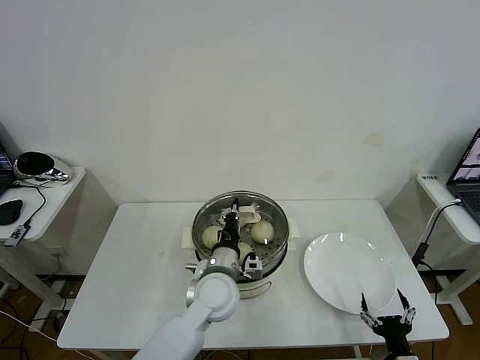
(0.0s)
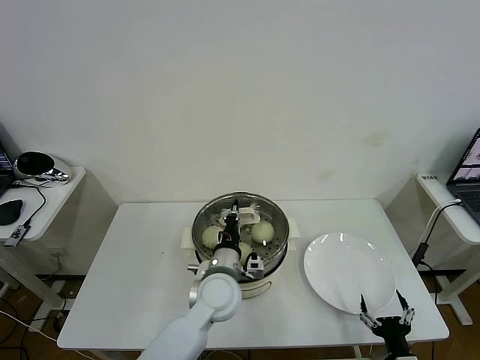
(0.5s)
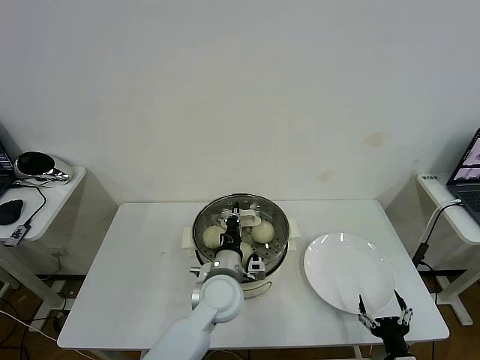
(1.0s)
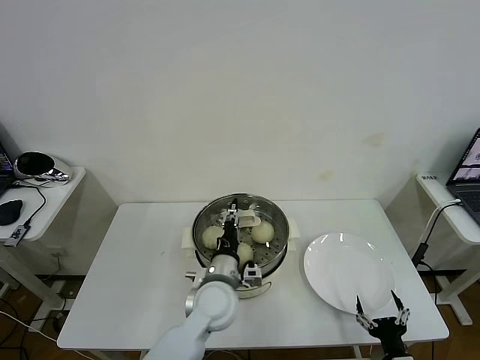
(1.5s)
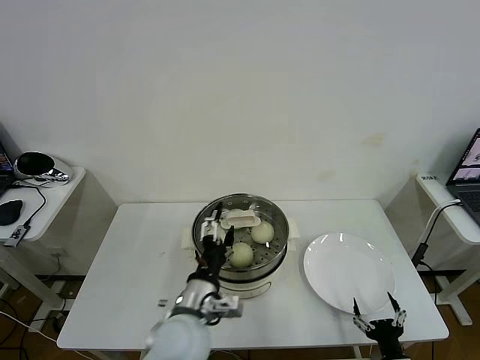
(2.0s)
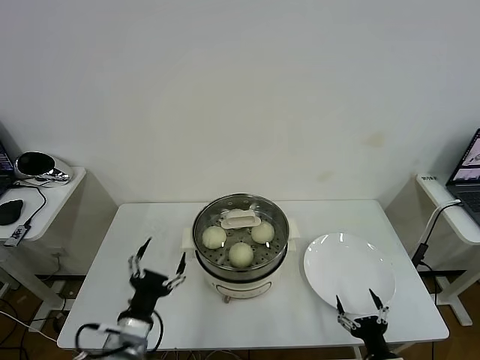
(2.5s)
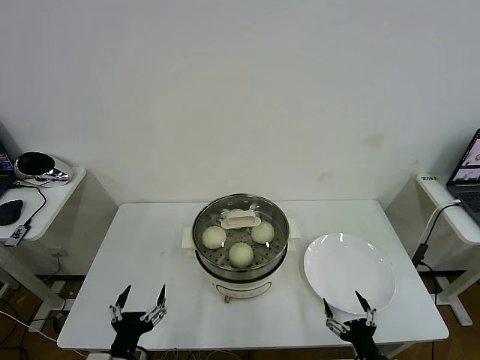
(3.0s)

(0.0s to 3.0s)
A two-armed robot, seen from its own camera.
Task of the whole recording: take steamed baozi put them in steamer then cover it.
Step, 0.0s - 2.0s: Place the pot lid on the steamer with left gripper.
0.0s - 1.5s: The left gripper opens up.
1.5s - 3.0s: The left gripper moves to the left and backward, roughly 30 cm, and opens up.
